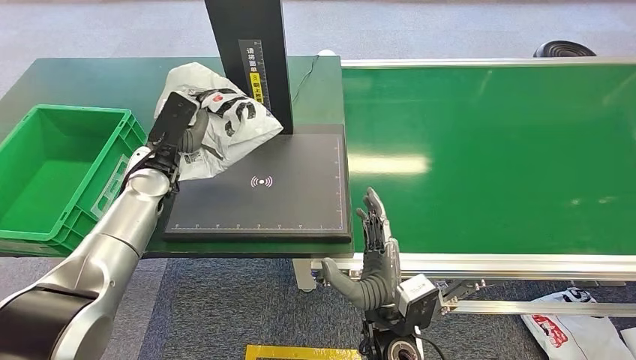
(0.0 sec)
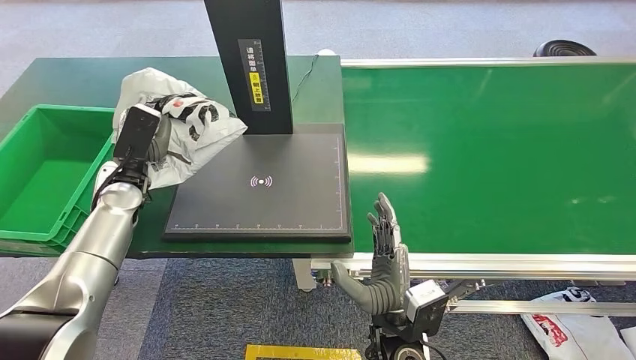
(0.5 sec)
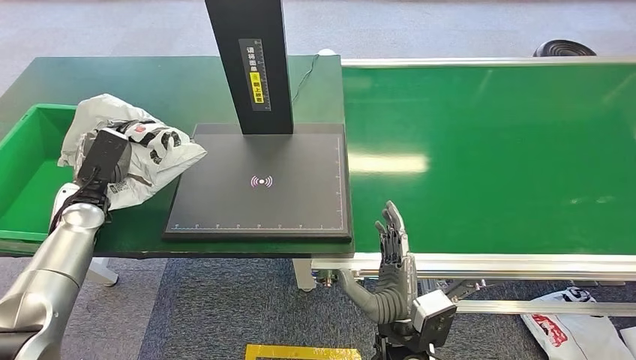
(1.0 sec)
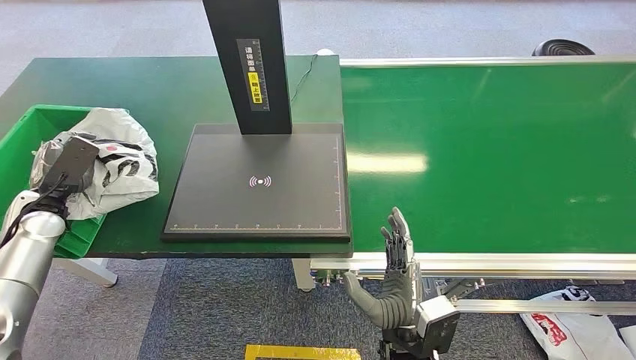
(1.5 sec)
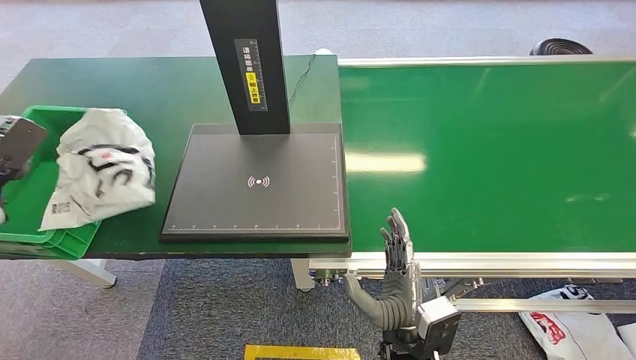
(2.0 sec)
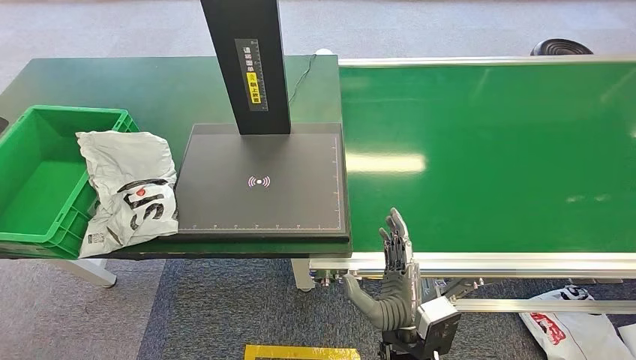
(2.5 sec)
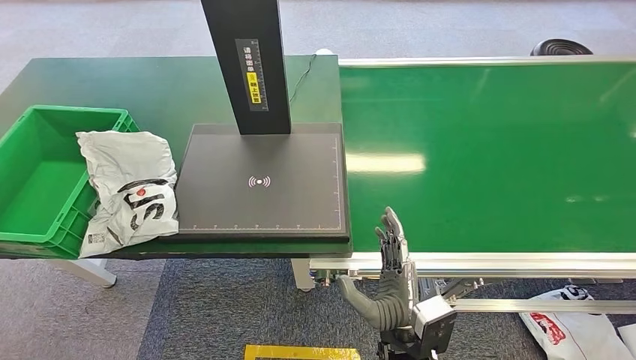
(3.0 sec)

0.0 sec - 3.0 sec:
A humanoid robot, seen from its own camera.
Step, 0.0 sec - 3.0 sec: Place the package into the parcel locker.
1.5 sec - 3.0 sec: The left hand travels to the left and upward by roughly 20 cm.

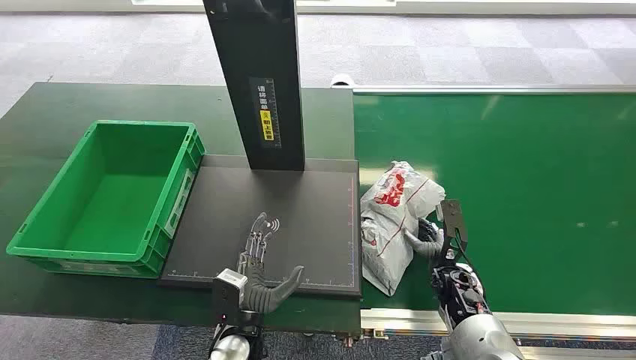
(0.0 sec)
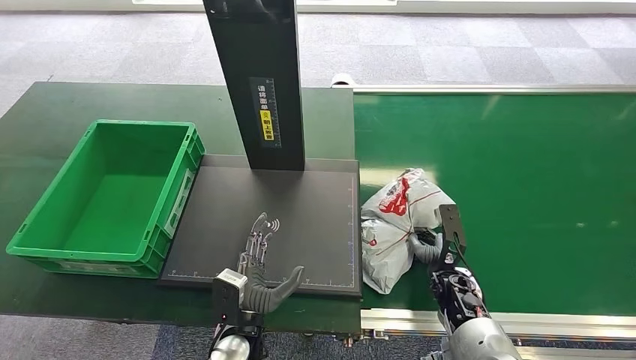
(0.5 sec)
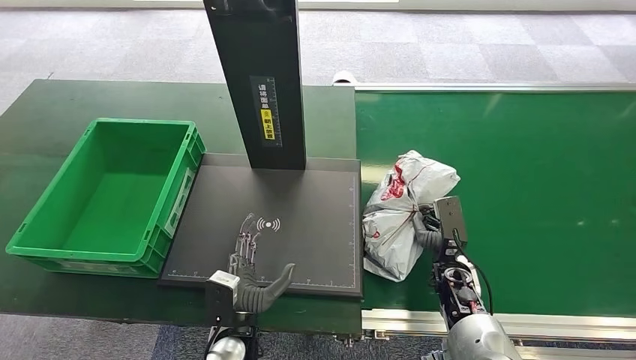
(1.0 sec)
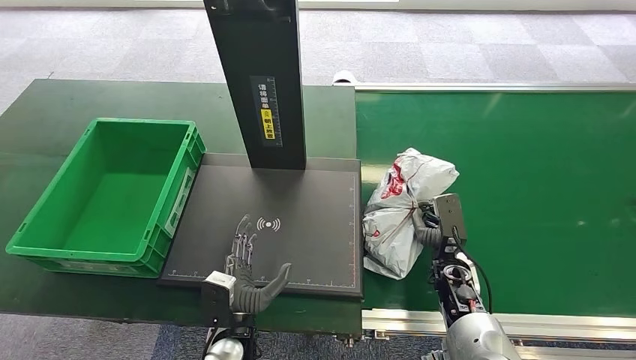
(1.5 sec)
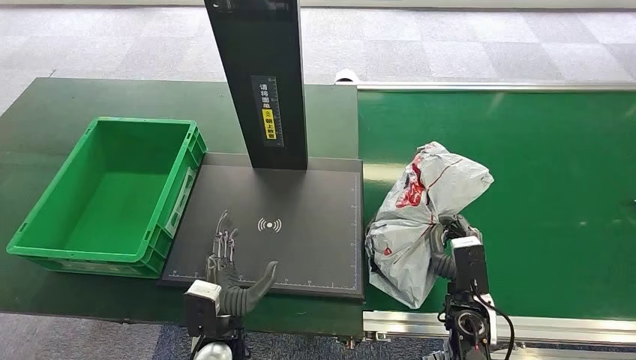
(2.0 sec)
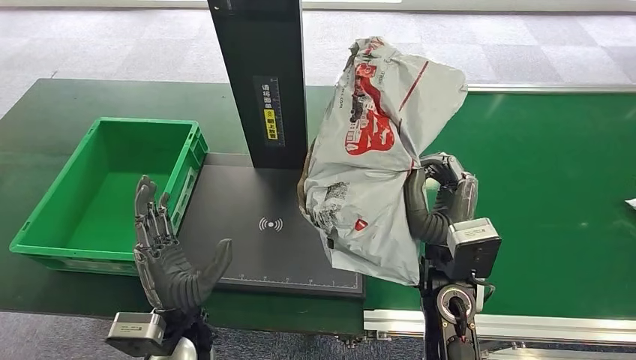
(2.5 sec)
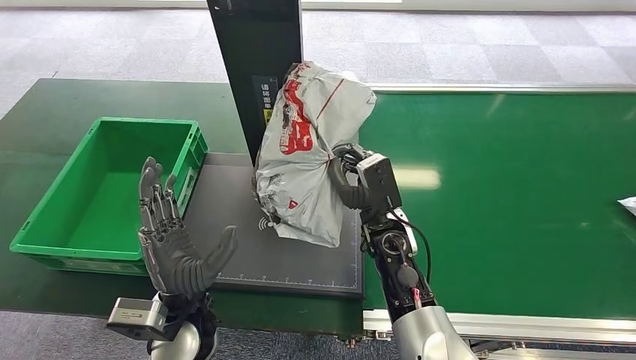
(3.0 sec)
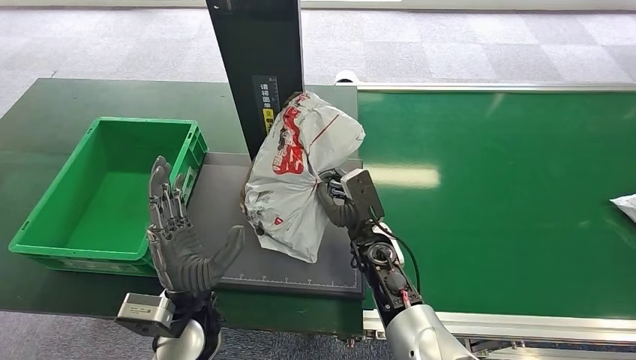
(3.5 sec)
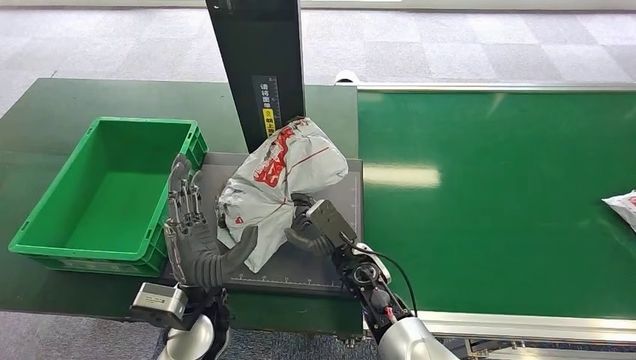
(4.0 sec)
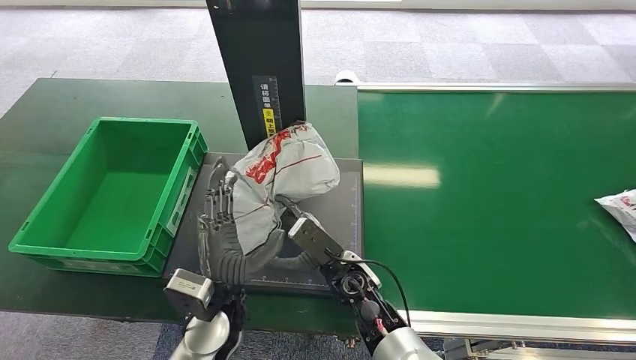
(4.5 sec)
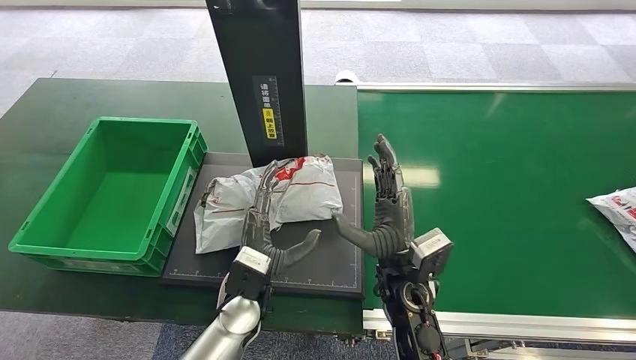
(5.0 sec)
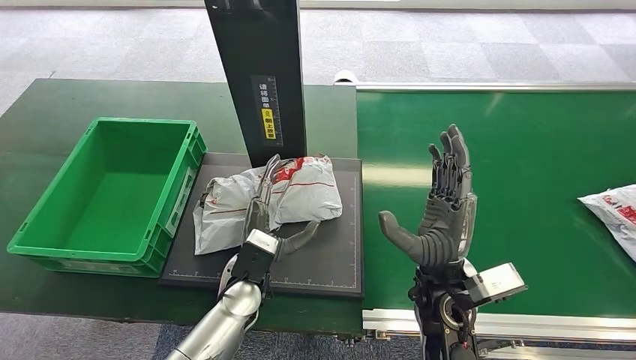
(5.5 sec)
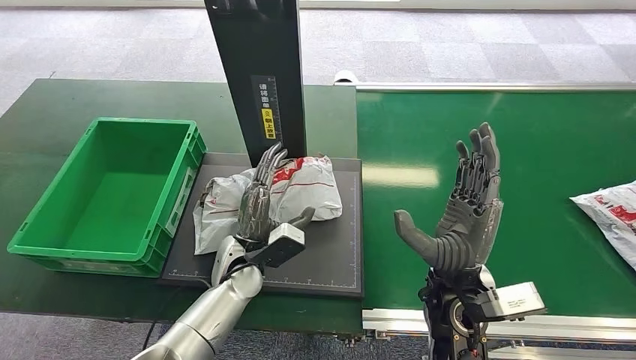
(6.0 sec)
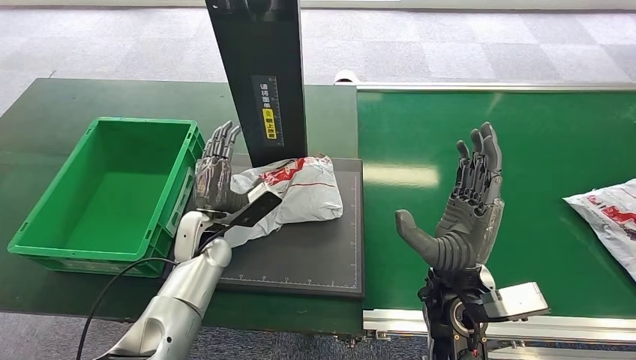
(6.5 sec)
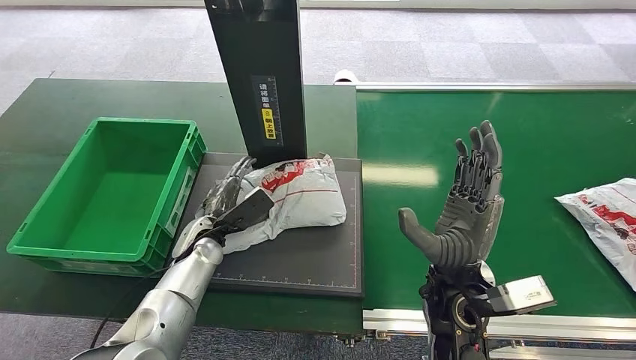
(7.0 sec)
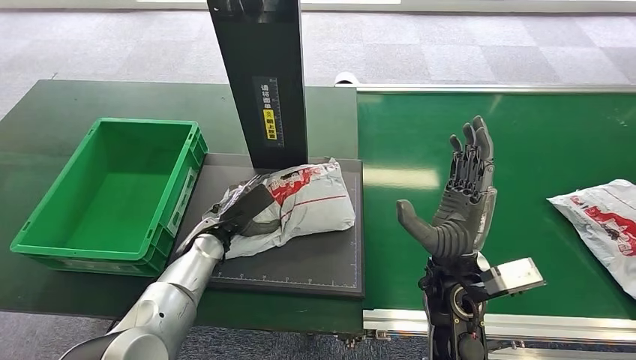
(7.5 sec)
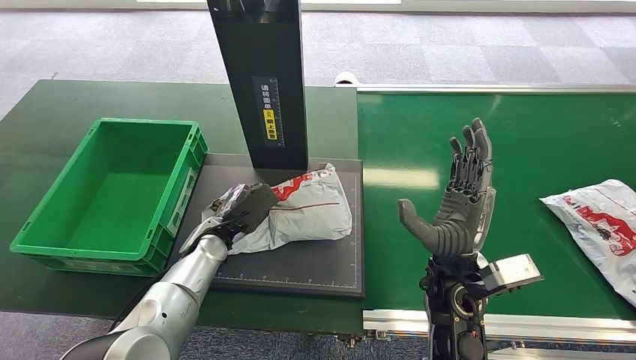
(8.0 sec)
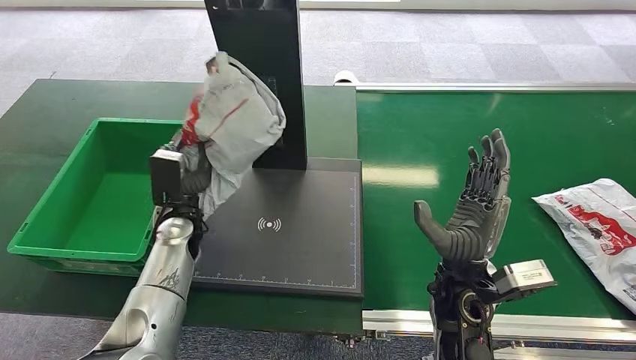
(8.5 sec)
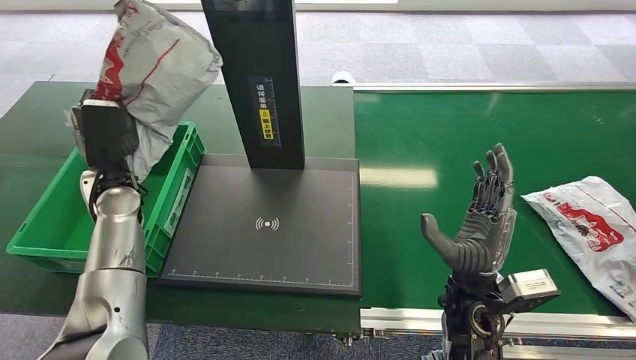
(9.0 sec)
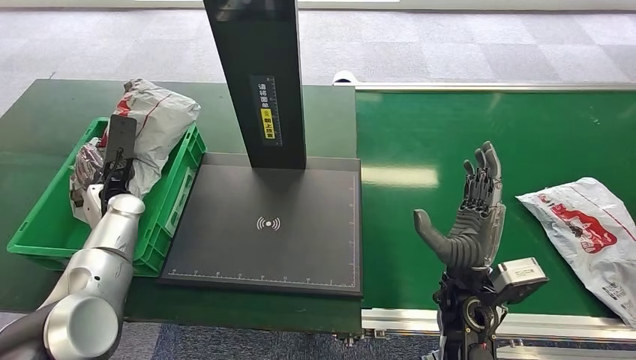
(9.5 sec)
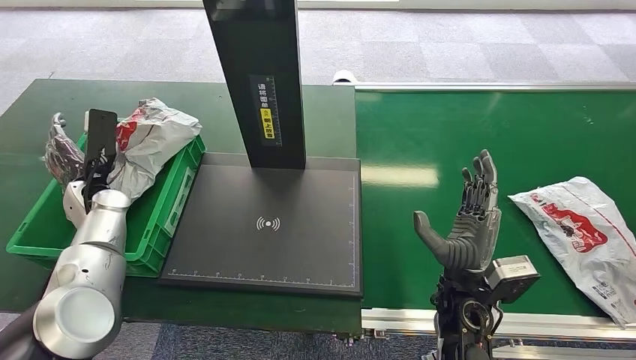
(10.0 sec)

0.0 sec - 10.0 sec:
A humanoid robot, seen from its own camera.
Step, 0.0 sec - 2.5 sec: Pick up the package from the conveyor belt.
Step, 3.0 sec - 5.0 sec: Place the package onto the inbound machine.
Step, 5.5 sec - 8.5 sec: Pick up the package from the inbound machine.
Step, 9.0 sec - 10.0 sec: Place the package into the parcel locker.
4.0 sec - 6.0 sec: The right hand shifts about 15 cm upward, to the right and backward. Meanwhile the left hand heads forward, covering about 10 cm.

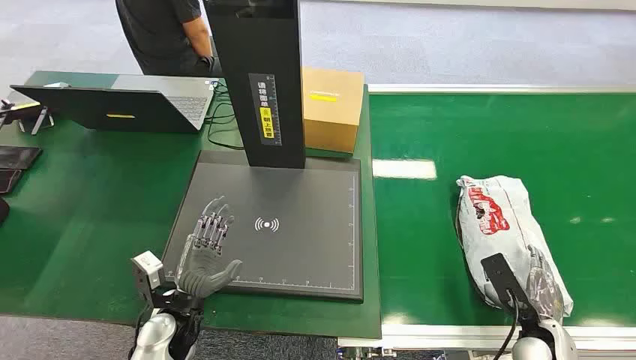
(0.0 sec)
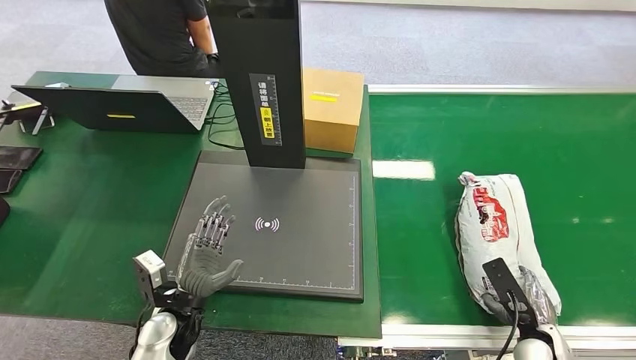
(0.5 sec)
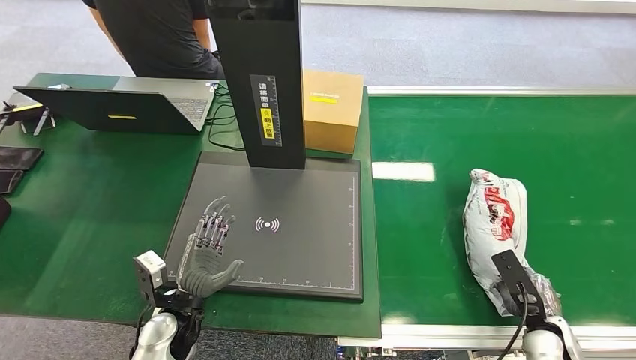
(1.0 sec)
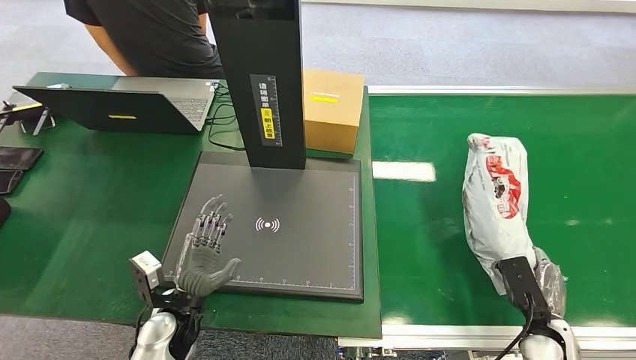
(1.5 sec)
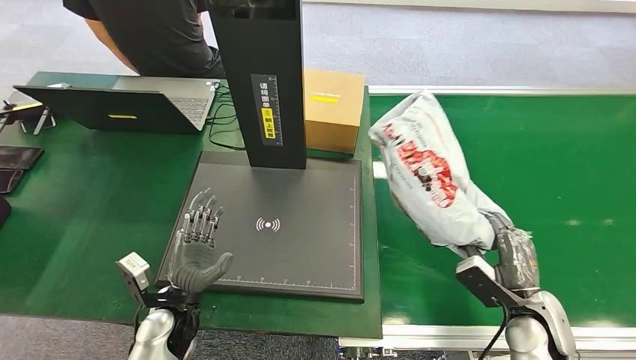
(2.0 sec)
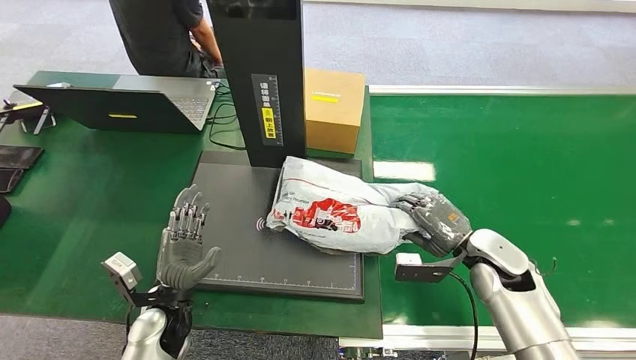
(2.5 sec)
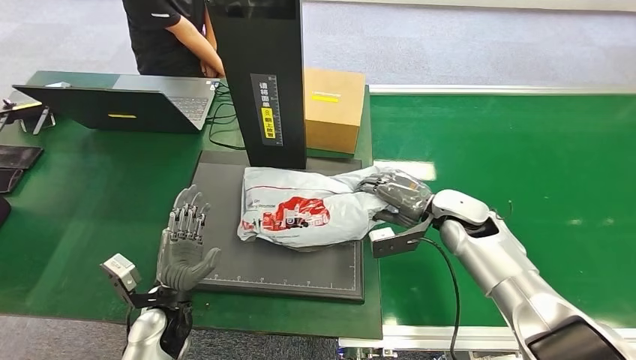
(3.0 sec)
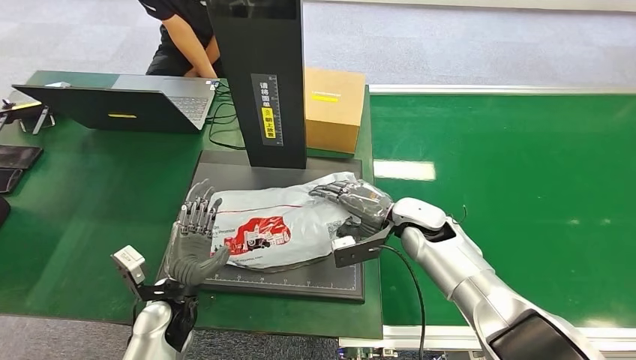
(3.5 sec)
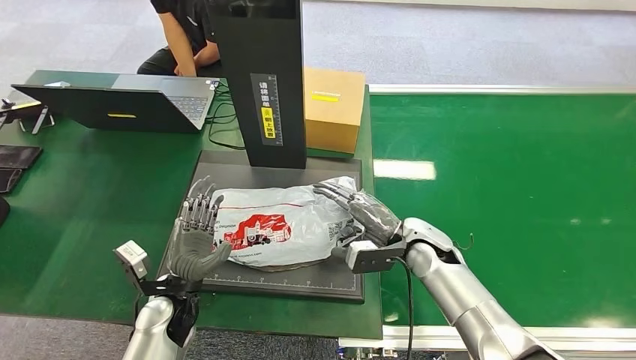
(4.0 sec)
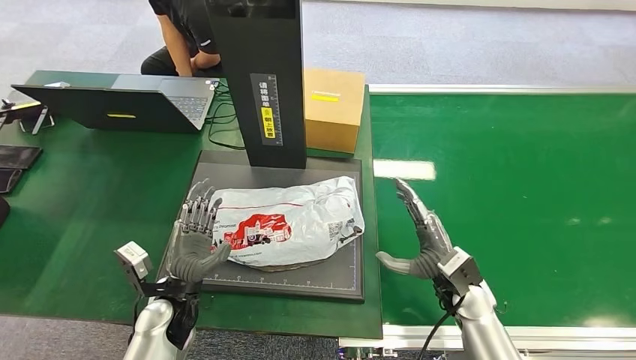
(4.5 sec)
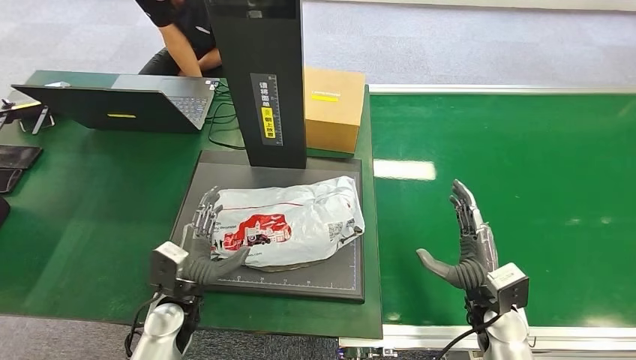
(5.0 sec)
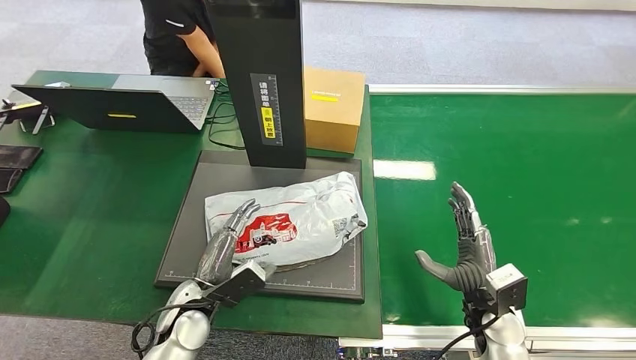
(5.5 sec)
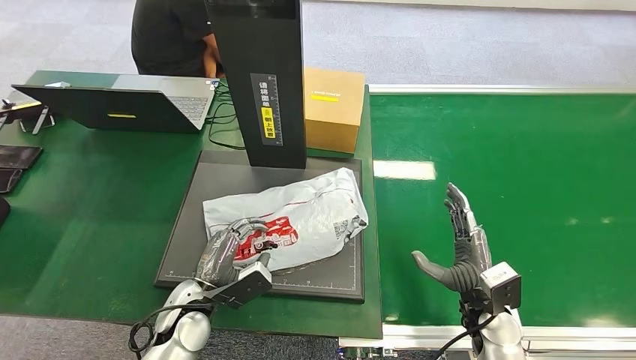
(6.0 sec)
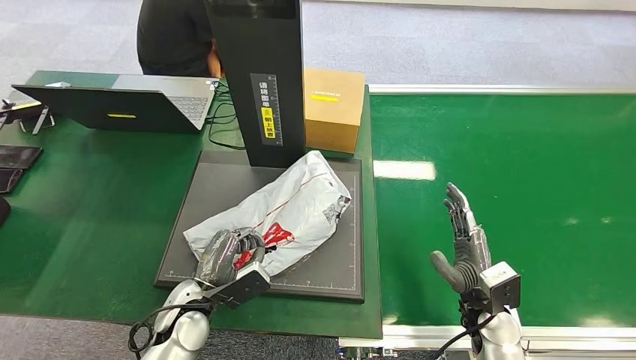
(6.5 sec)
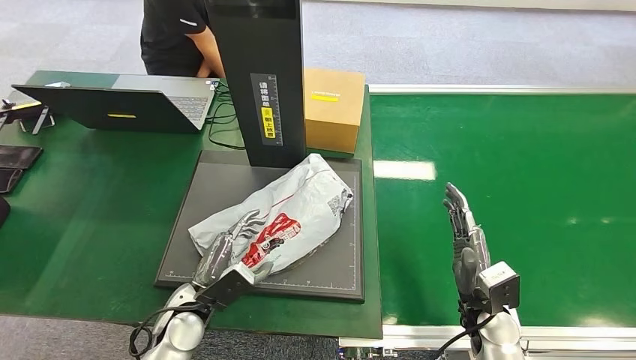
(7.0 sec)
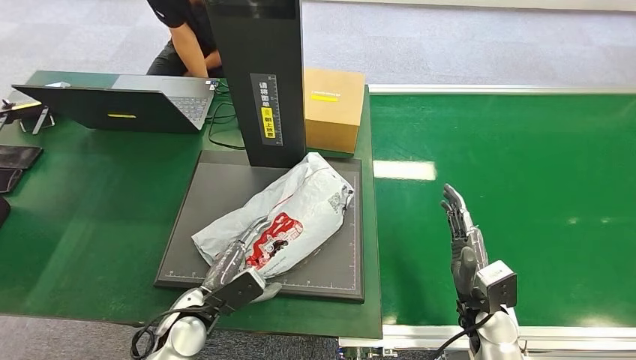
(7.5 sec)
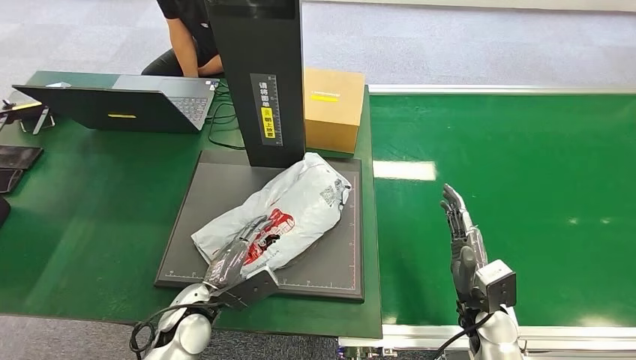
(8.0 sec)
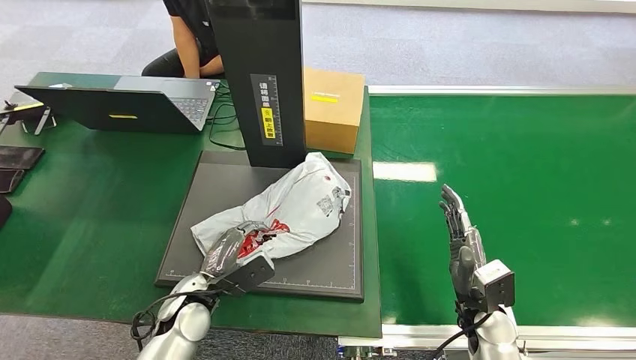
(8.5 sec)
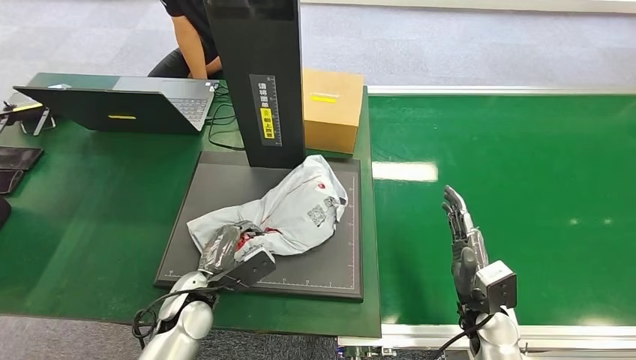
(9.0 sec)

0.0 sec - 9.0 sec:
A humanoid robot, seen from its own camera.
Step, 0.0 sec - 2.0 sec: Pick up the package from the conveyor belt.
Step, 2.5 sec - 5.0 sec: Place the package onto the inbound machine.
4.5 sec - 7.0 sec: The right hand shifts by some 5 cm.
